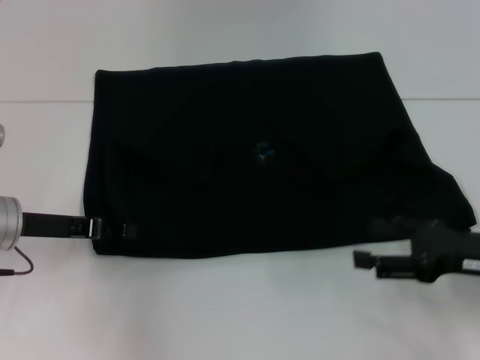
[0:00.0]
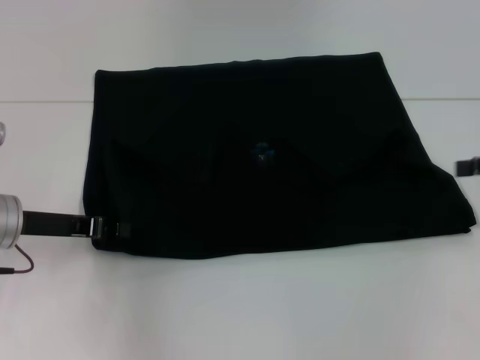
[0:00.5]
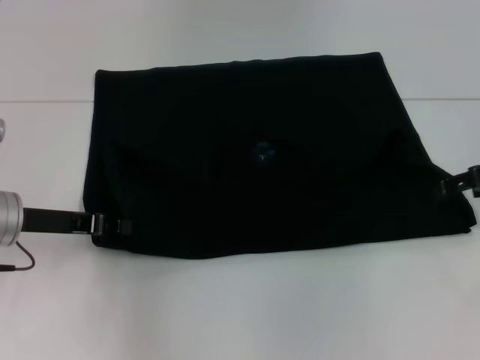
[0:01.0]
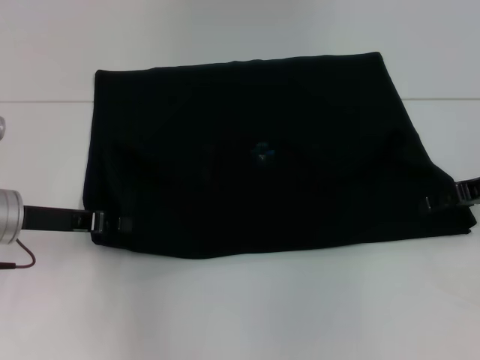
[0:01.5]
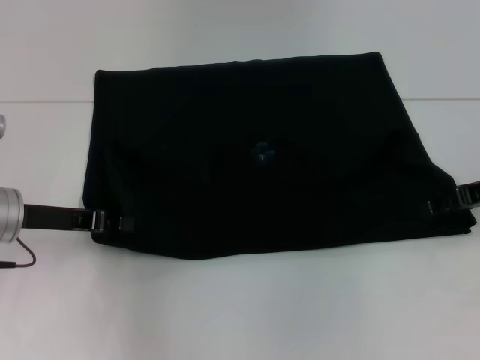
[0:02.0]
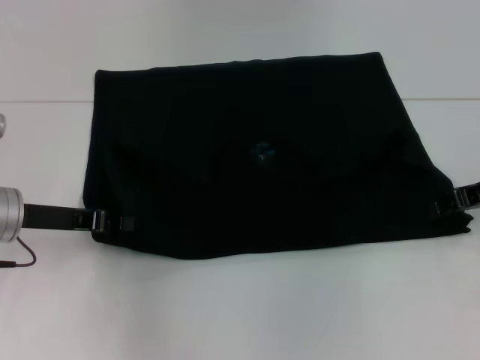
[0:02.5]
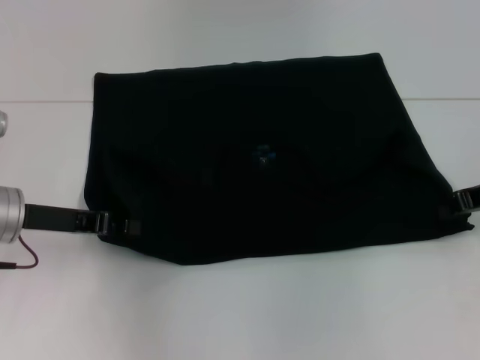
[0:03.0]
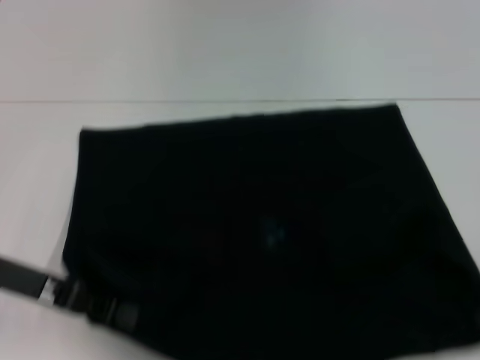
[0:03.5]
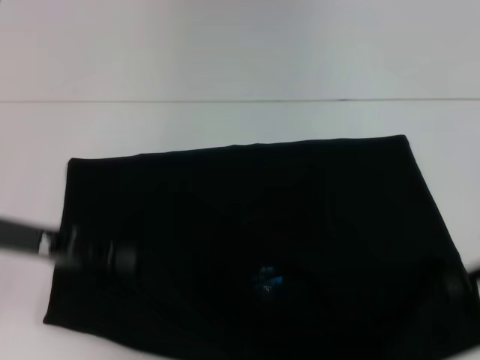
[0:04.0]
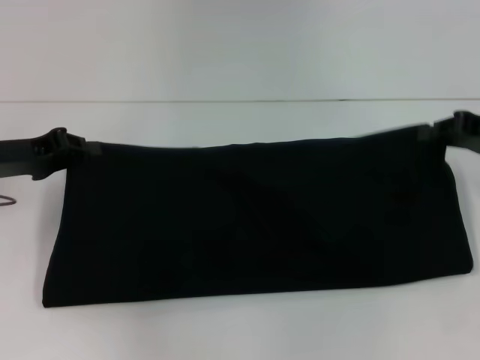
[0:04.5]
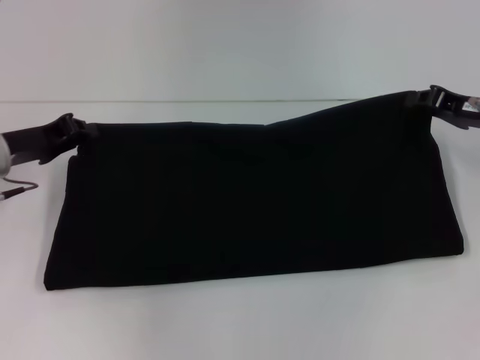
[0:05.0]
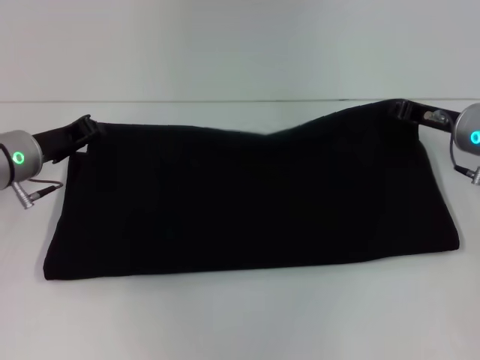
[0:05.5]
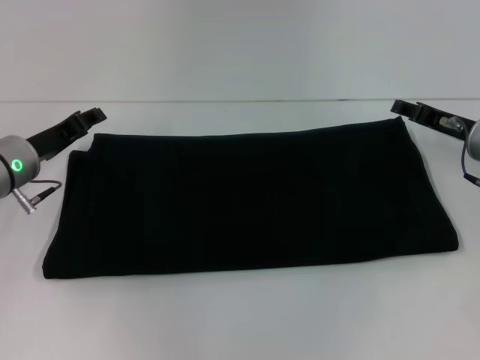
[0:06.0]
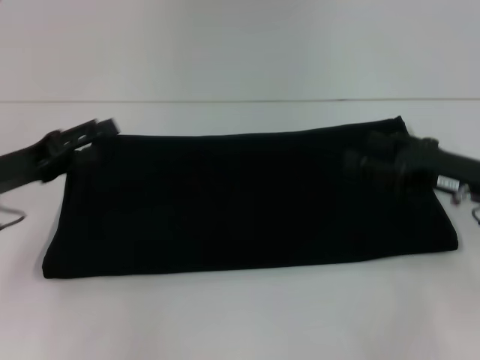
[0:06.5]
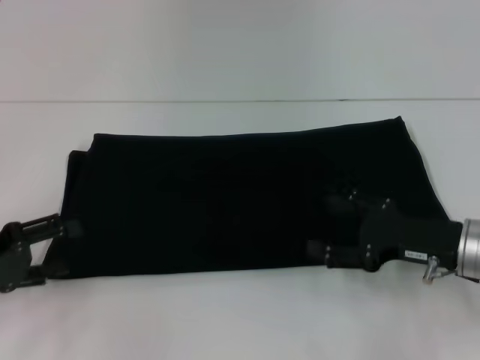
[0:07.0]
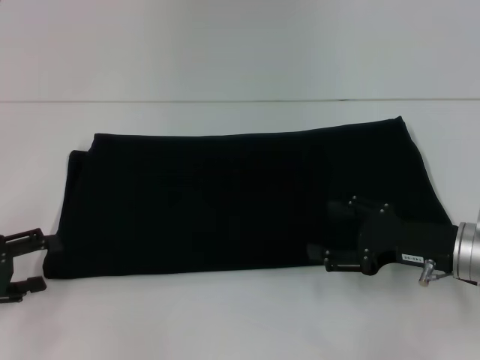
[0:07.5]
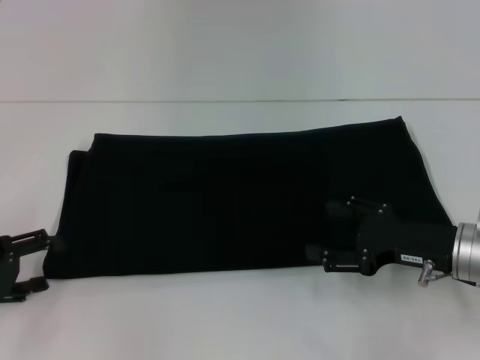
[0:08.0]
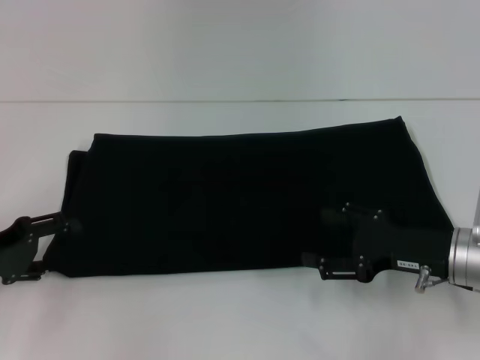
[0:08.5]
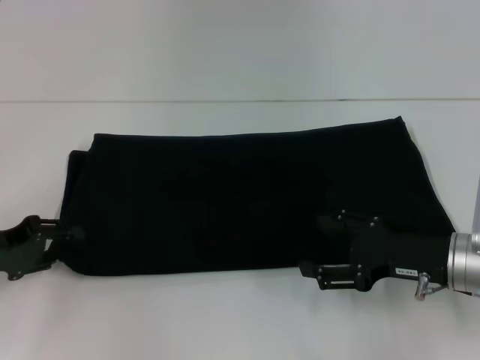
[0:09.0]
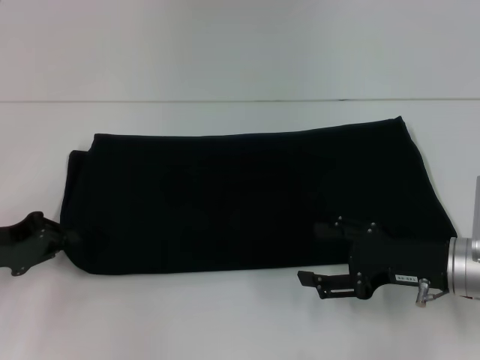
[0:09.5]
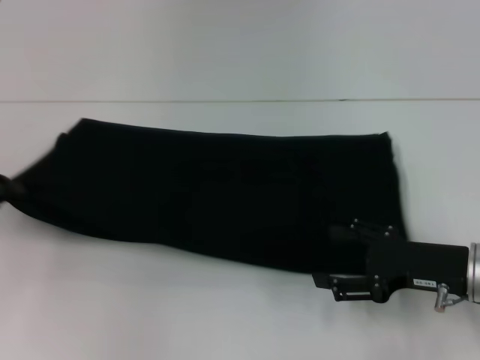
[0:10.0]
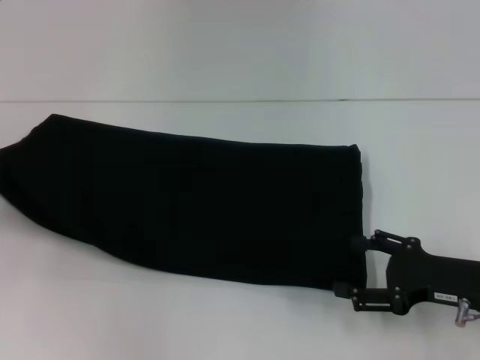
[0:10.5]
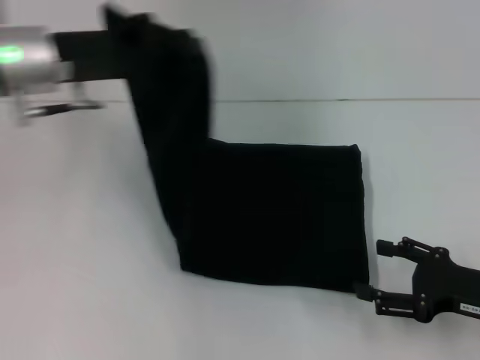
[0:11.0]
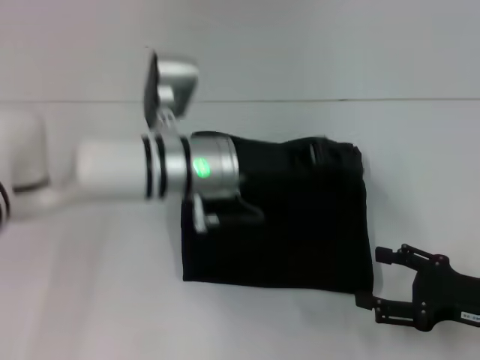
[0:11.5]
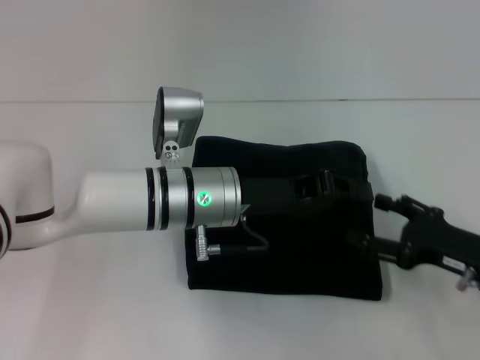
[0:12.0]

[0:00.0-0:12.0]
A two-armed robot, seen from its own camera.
Step, 0:00.0 to 0:03.5: Pull the clothes with your left hand.
Step, 0:00.0 to 0:03.5: Pull the clothes with your right hand.
Step, 0:04.0 to 0:05.5: Fold the clothes with your right hand.
0:00.0 to 0:02.0: The left gripper closes its fingers. Meanwhile the right gripper goes roughly 10 cm forward.
0:02.0 to 0:04.0: The left gripper shifts by roughly 5 cm, while the right gripper is displaced backward by some 5 cm, and closes up.
0:04.0 to 0:06.0: The right gripper is displaced forward, to the left and downward by about 10 cm, and opens its fingers. The left gripper heads forward and downward, covering approximately 10 cm.
0:06.0 to 0:08.0: The left gripper moves backward and to the left, about 15 cm, and opens its fingers, while the right gripper travels backward by approximately 10 cm, and opens up.
0:08.0 to 0:10.0: The left gripper travels forward by about 5 cm, and closes up.
0:10.0 to 0:12.0: The left gripper is displaced to the right by roughly 30 cm.

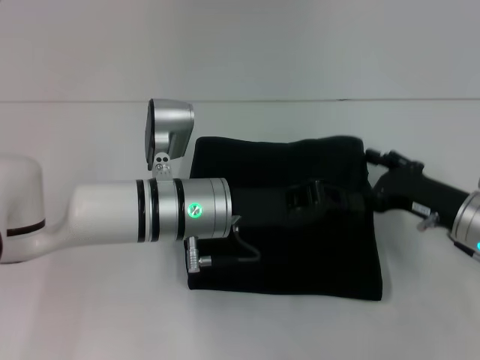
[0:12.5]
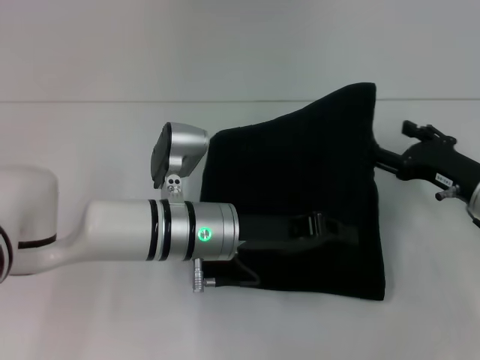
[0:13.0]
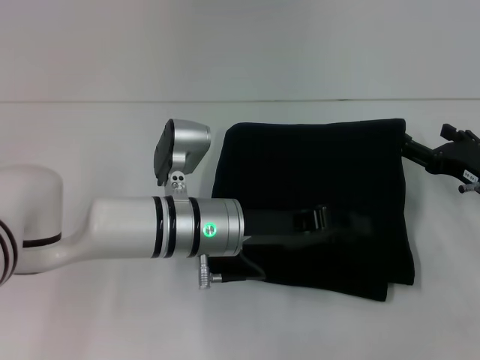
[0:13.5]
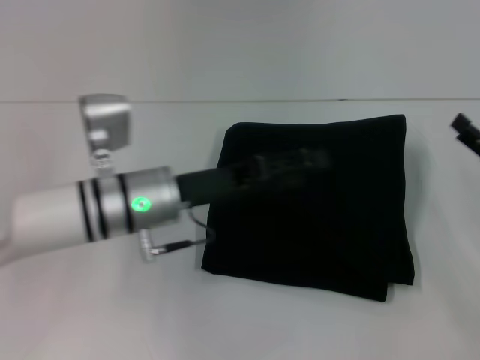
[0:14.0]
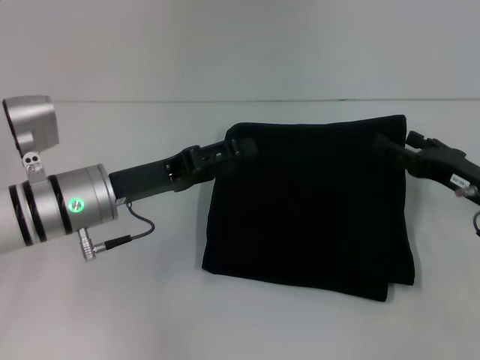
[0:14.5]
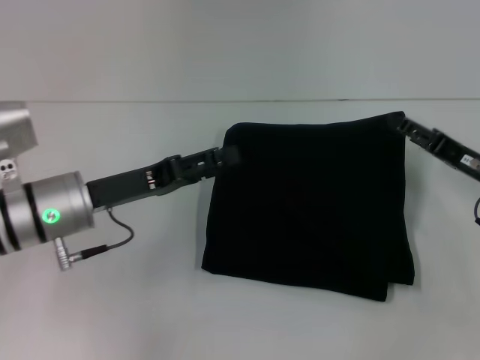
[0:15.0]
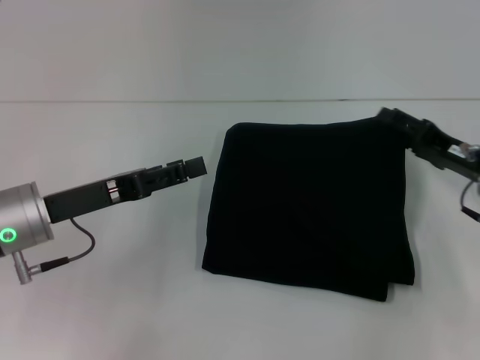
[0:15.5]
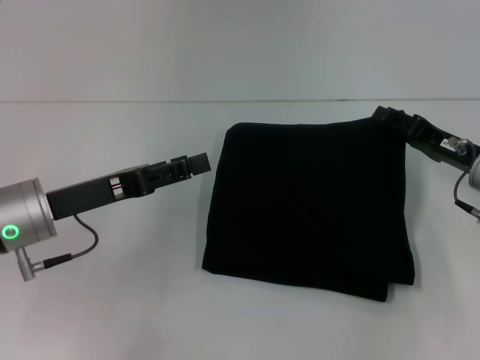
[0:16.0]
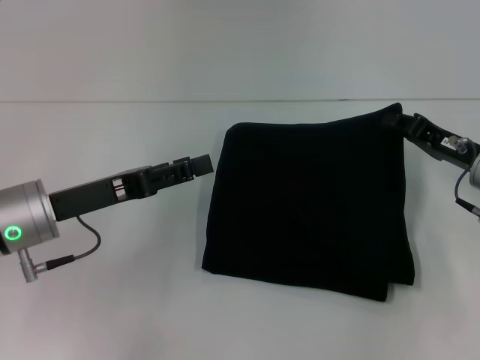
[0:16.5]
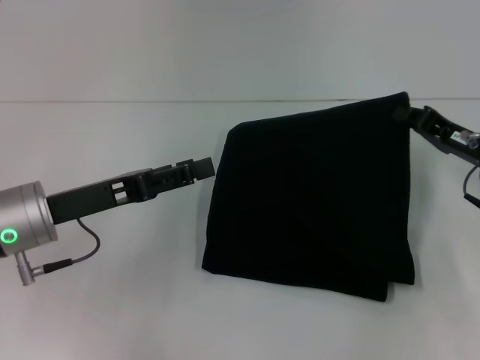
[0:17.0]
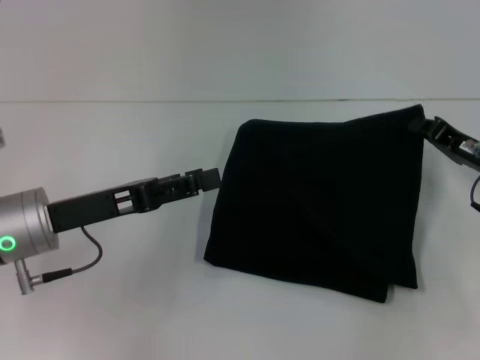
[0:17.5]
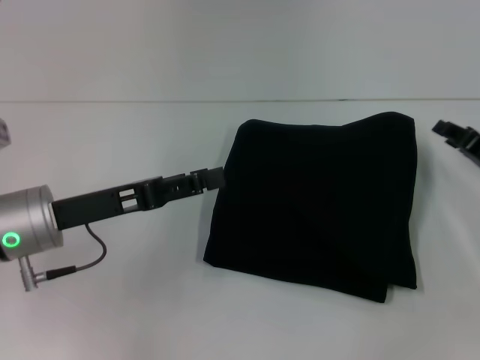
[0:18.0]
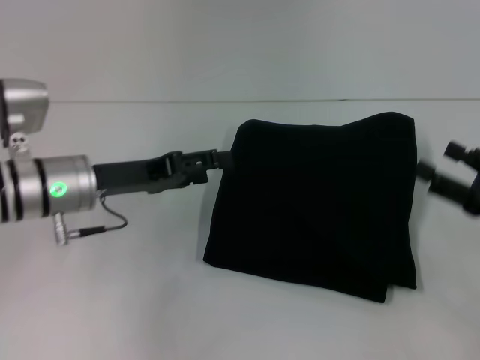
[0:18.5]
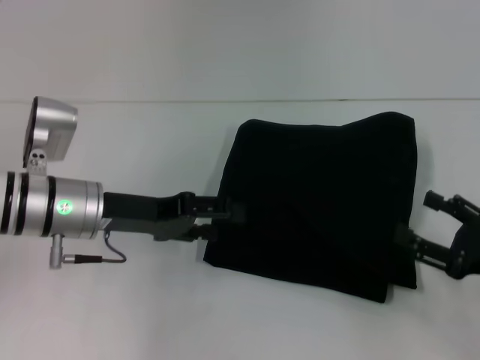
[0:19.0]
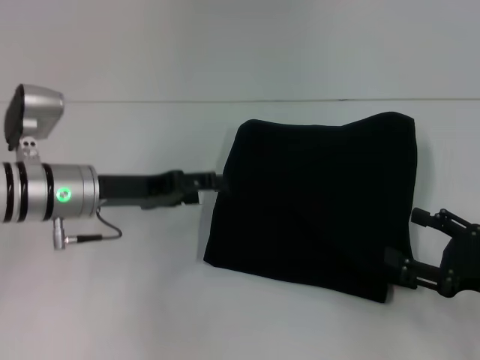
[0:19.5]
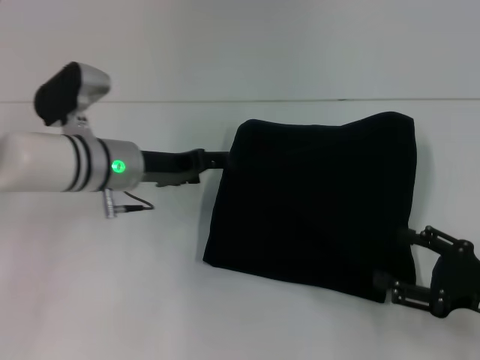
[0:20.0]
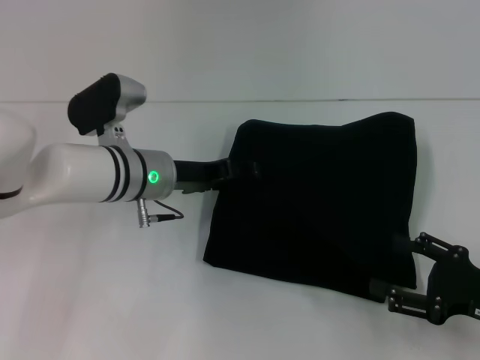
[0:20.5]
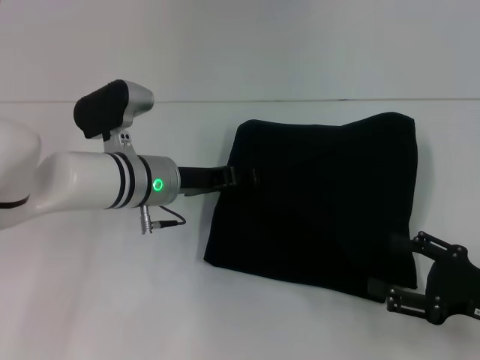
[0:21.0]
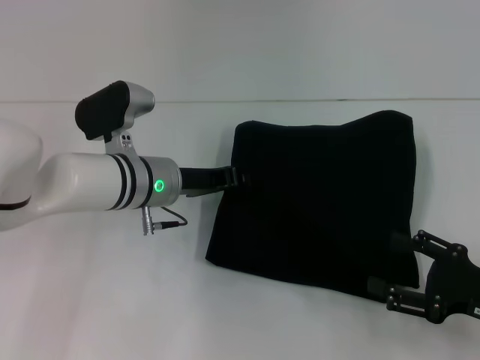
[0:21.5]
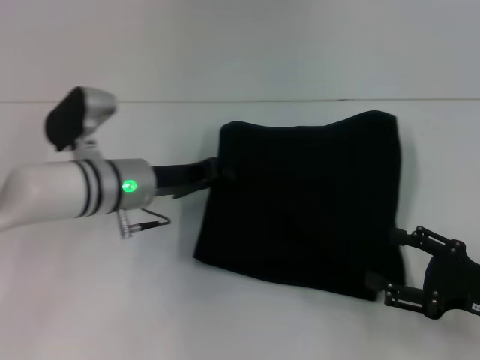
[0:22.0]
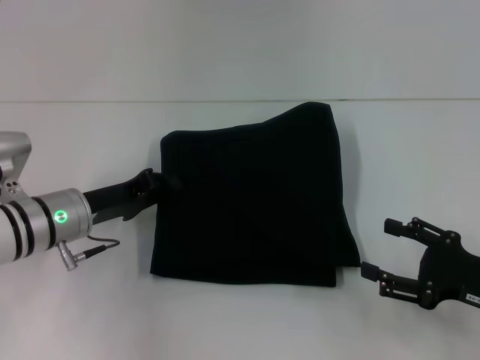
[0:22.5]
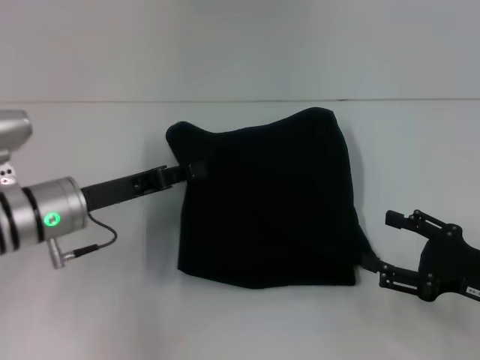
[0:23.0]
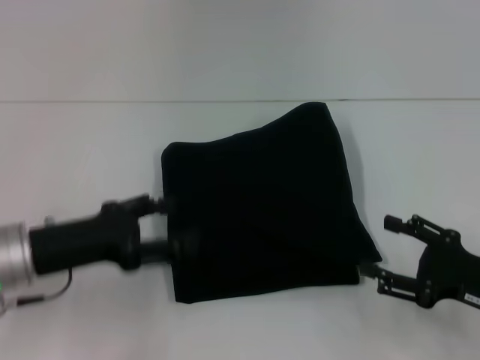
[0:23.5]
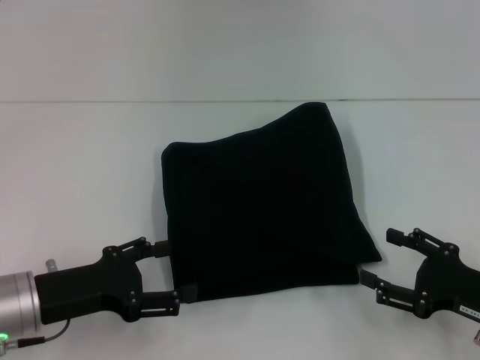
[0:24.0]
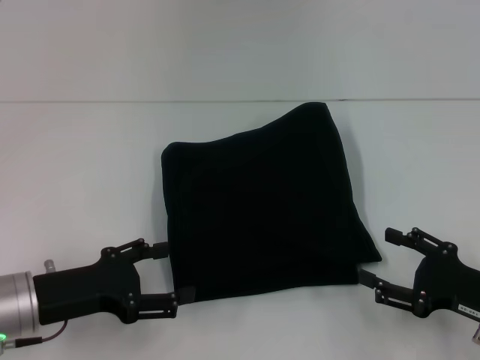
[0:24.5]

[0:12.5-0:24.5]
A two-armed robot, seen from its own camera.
0:12.5 to 0:14.5: The left gripper heads to the left, covering approximately 10 cm, and opens up.
0:14.5 to 0:16.5: The right gripper closes up; the left gripper shifts by roughly 5 cm.
0:16.5 to 0:18.5: The left gripper moves approximately 5 cm, while the right gripper heads backward and to the right, covering about 10 cm, and closes, then reopens.
0:18.5 to 0:20.5: The left gripper is displaced to the right by approximately 10 cm; the right gripper changes place by about 5 cm.
0:20.5 to 0:22.5: The left gripper shifts roughly 10 cm to the left and backward, and closes its fingers.
0:22.5 to 0:24.5: The left gripper goes roughly 10 cm backward, and opens its fingers.
